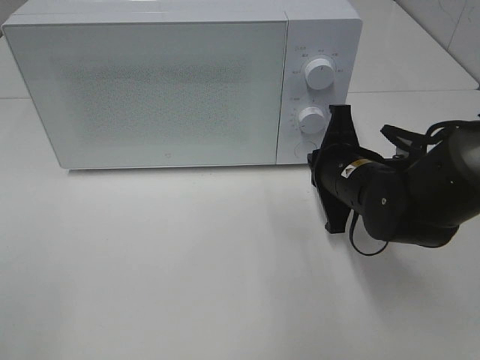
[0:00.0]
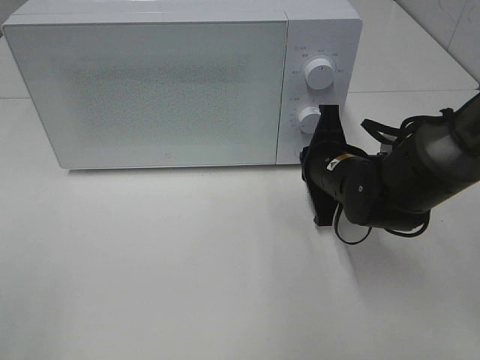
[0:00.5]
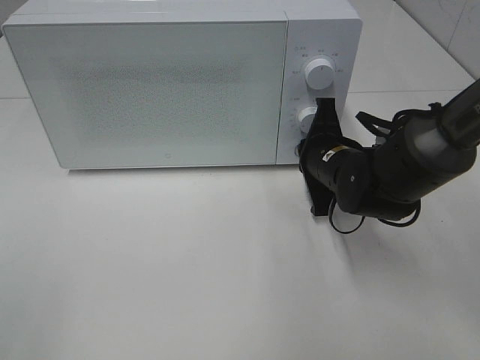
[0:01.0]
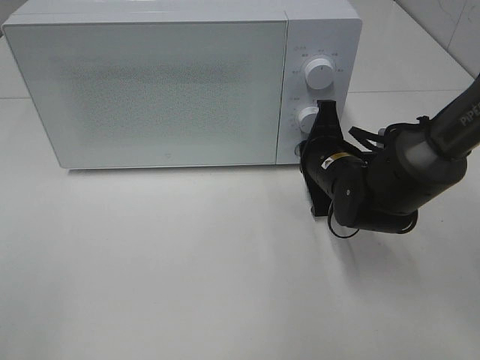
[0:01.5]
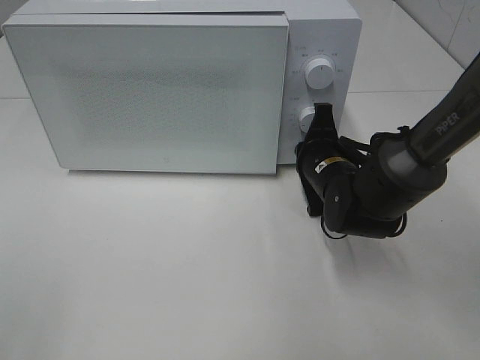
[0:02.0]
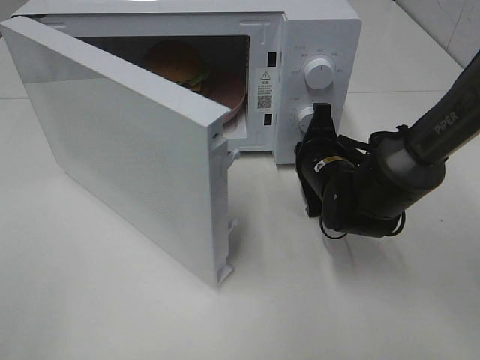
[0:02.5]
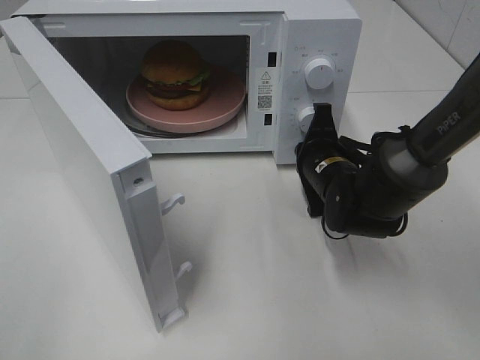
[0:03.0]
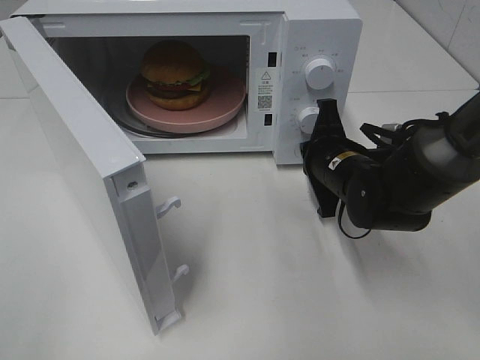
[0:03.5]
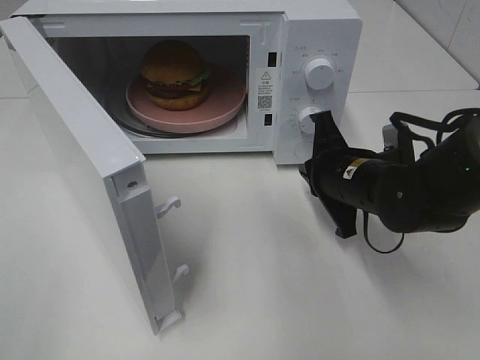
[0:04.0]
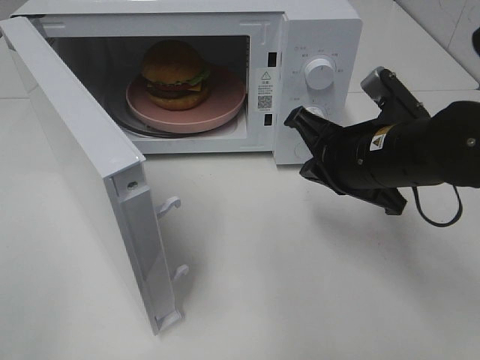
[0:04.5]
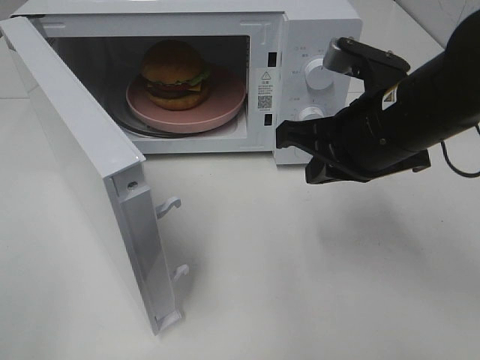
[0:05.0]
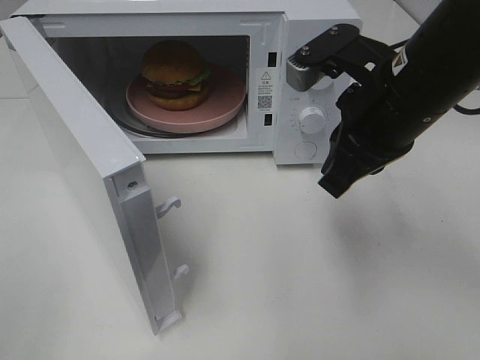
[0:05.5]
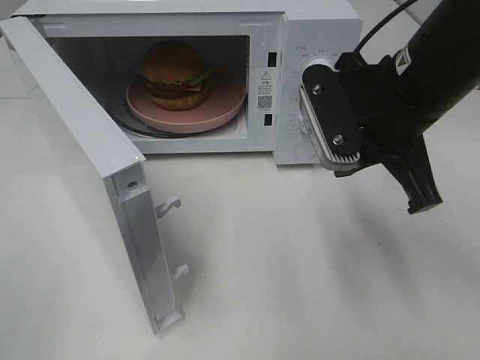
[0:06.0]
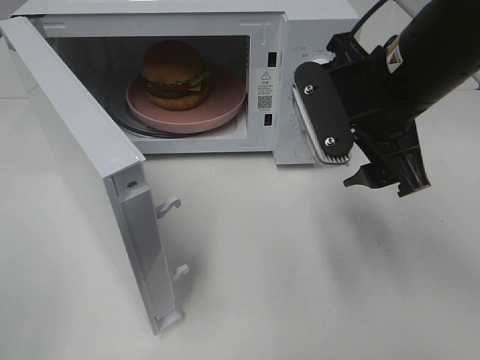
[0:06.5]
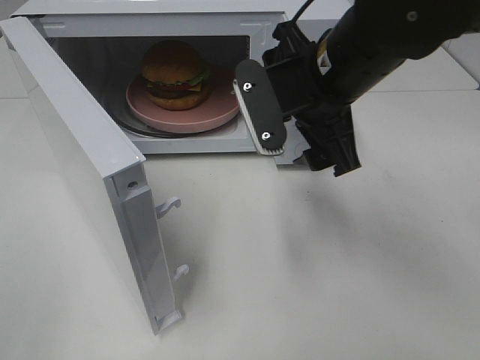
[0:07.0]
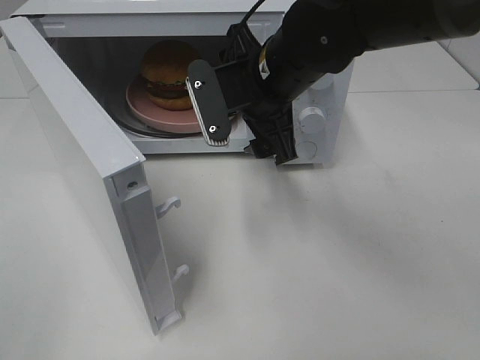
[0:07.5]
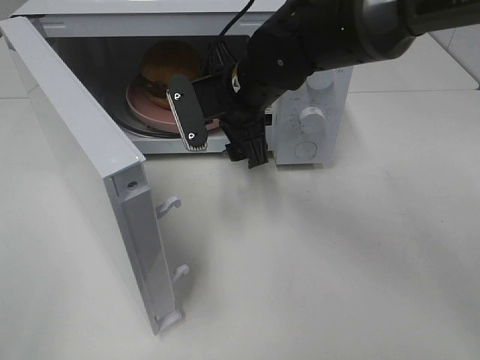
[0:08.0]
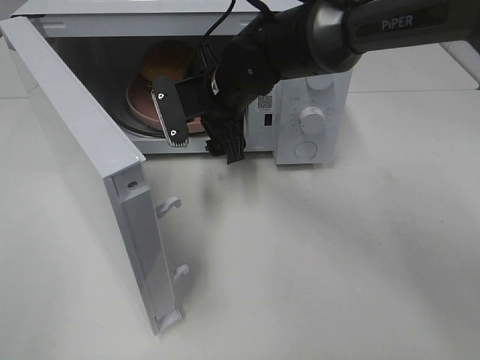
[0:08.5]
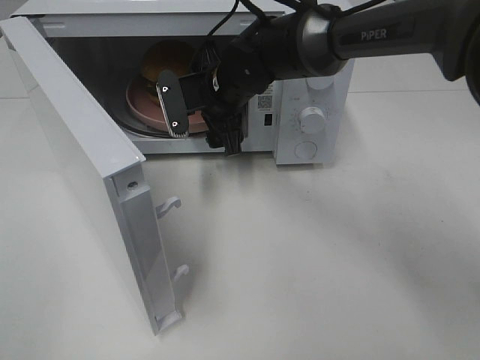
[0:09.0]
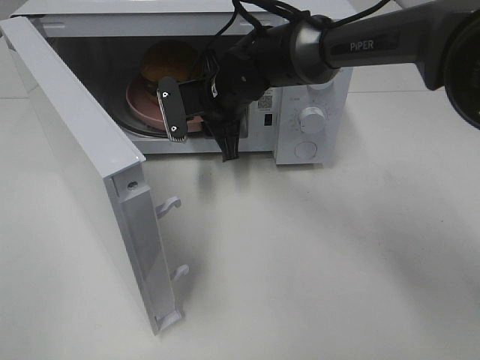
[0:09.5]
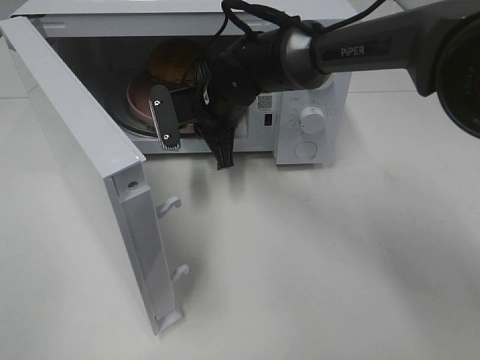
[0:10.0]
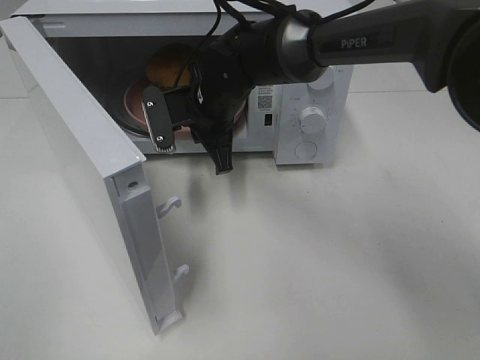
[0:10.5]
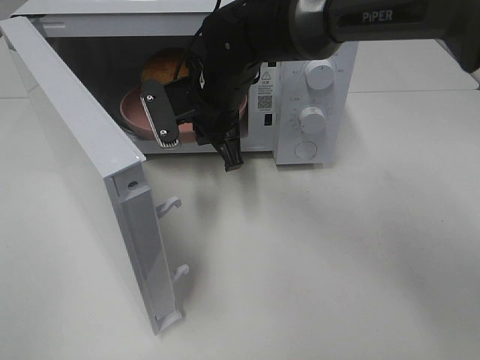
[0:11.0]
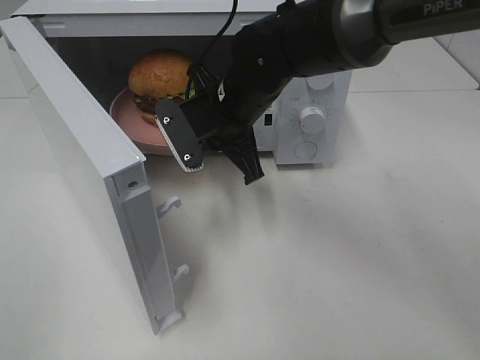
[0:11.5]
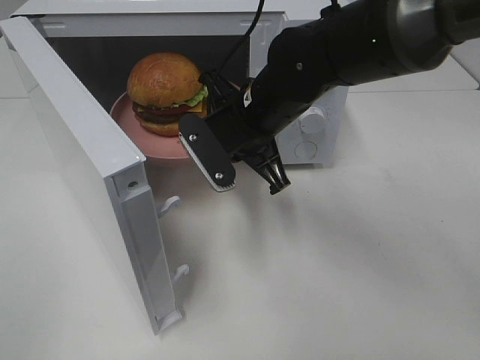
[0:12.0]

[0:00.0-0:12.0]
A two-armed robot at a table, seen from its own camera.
Task of the whole recording: Heat the burger.
Step, 0:00.0 to 0:03.5: Right hand: press the switch.
Step, 0:04.0 to 0:09.5: Right hand: grab the plate with the hamburger.
0:00.0 to 0:02.0: The right gripper moves some 5 cm.
0:02.0 to 0:04.0: The right gripper goes approximately 5 cm backward.
0:04.0 to 0:06.0: The right gripper is displaced upward by roughly 15 cm.
0:06.0 to 0:08.0: The right gripper travels to the left, forward and downward by about 20 cm, and opens its fingers.
0:08.0 to 0:10.0: The right gripper travels forward by about 5 cm, and closes up.
0:10.0 to 0:12.0: The right gripper is displaced backward by approximately 10 cm.

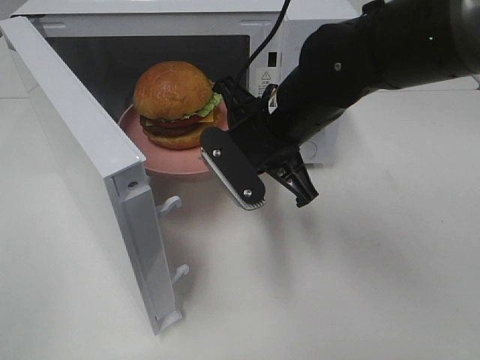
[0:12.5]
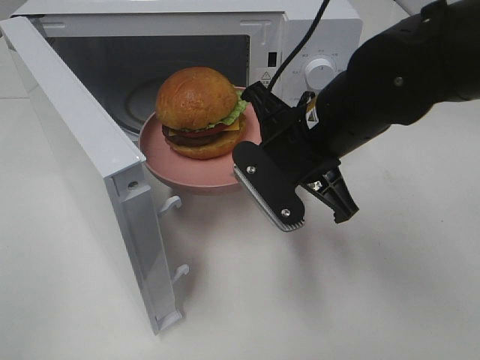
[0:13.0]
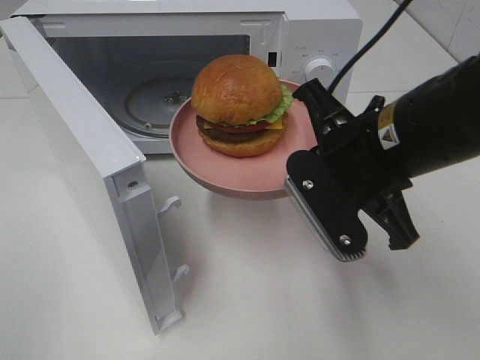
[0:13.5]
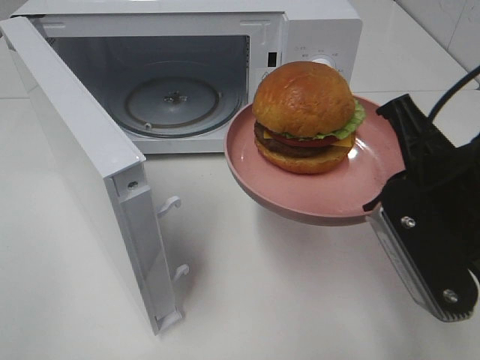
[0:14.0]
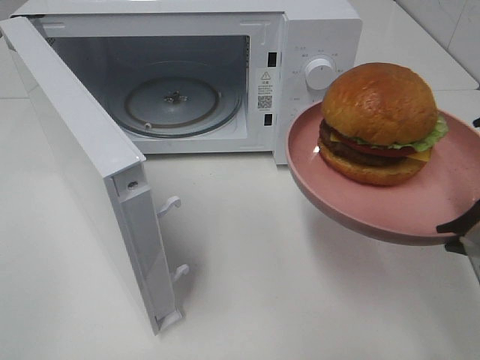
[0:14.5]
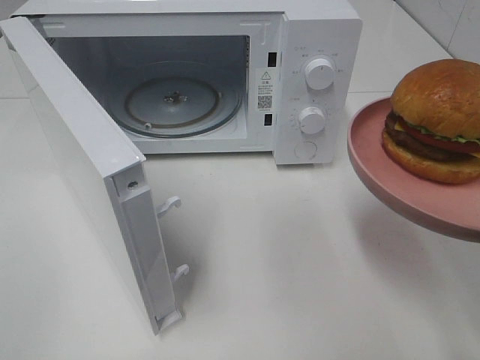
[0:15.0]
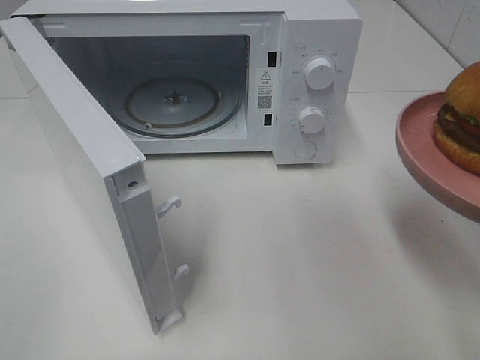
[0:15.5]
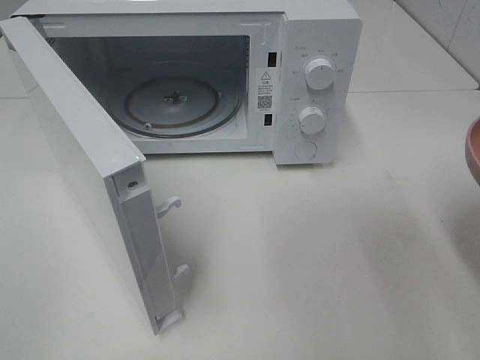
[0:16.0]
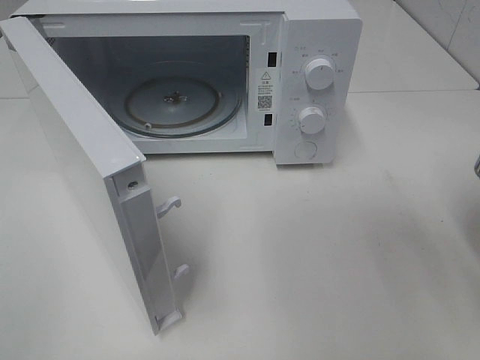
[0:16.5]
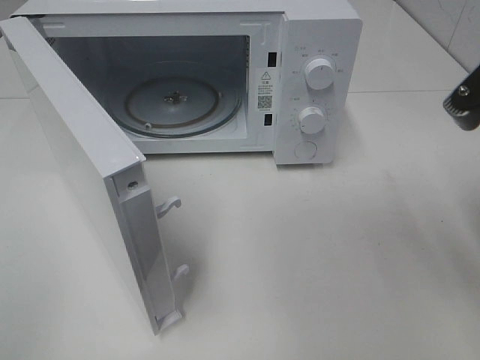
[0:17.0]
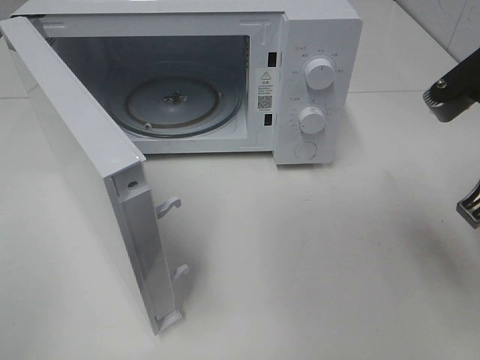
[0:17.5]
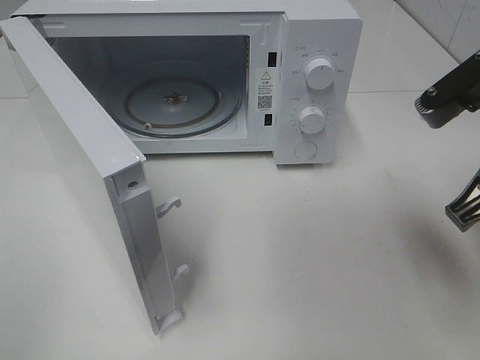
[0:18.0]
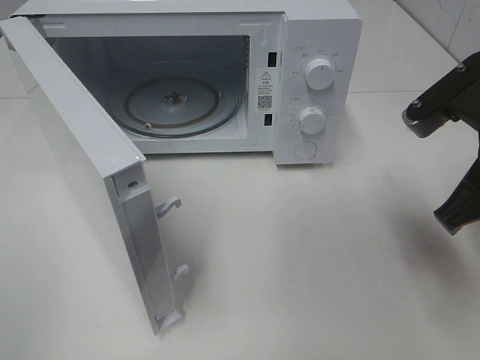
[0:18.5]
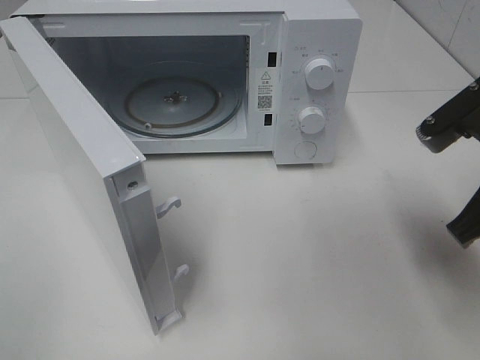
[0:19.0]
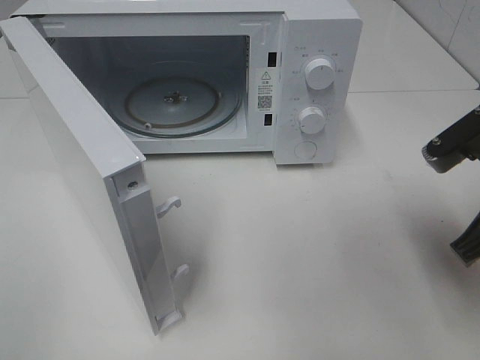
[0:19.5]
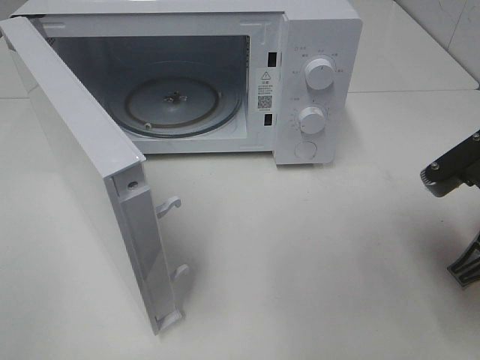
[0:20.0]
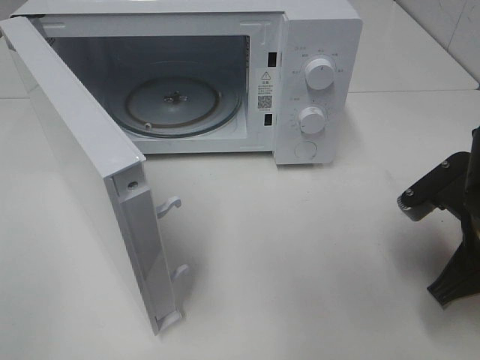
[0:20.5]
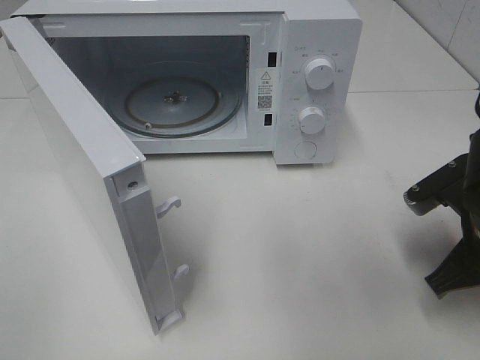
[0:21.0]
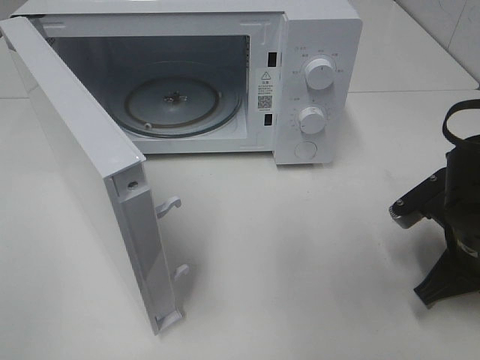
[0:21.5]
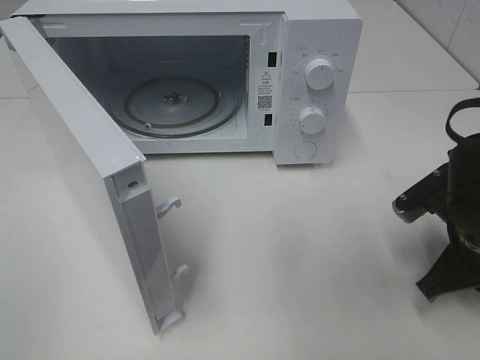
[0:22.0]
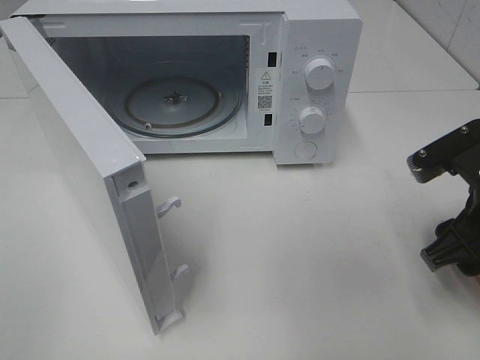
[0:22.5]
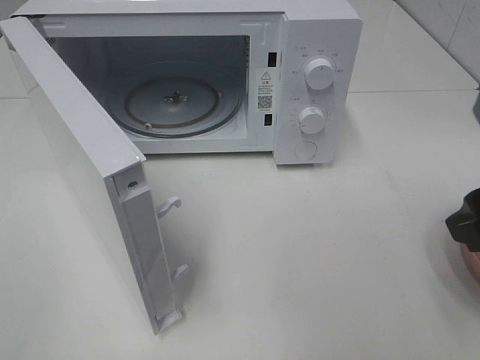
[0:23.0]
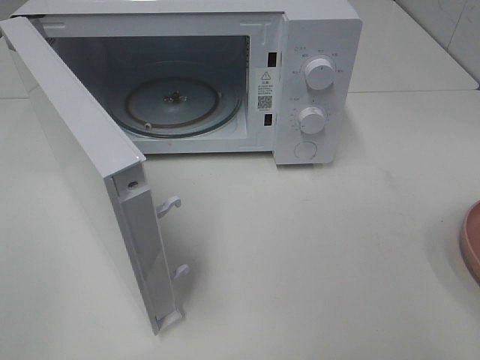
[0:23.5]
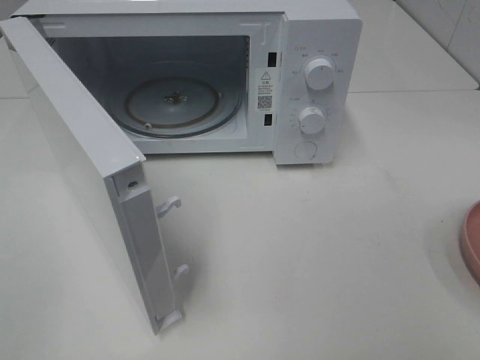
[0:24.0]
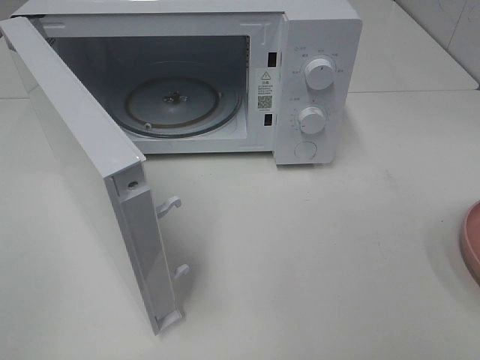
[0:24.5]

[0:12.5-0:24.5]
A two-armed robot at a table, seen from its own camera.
Task of the whole recording: Heat the burger.
Step, 0:12.5 to 0:22.0: Right hand: place the plate on the table.
0:12.5 to 0:14.5: The right gripper heads backward and to the right, covering approximately 25 cm.
0:16.5 to 0:18.5: The right gripper goes some 5 cm forward.
0:18.5 to 0:20.5: The right gripper goes some 10 cm downward.
0:20.5 to 0:22.5: The right gripper opens its fingers.
0:22.5 to 0:24.5: The right gripper goes some 20 cm backward and upward.

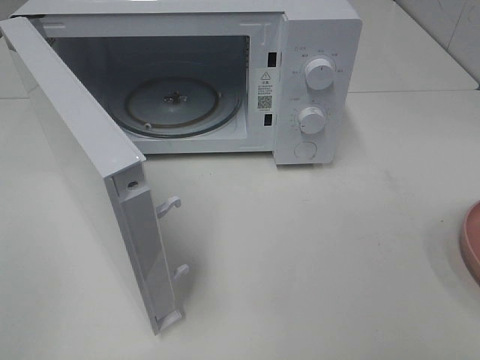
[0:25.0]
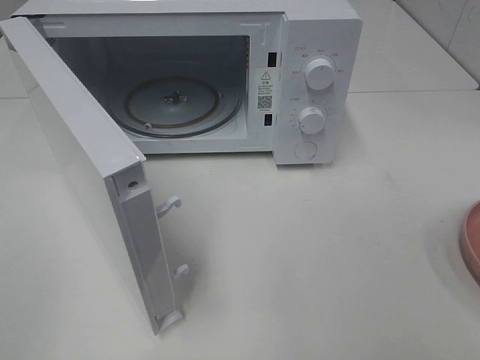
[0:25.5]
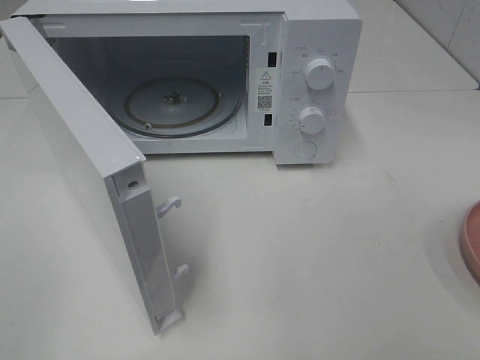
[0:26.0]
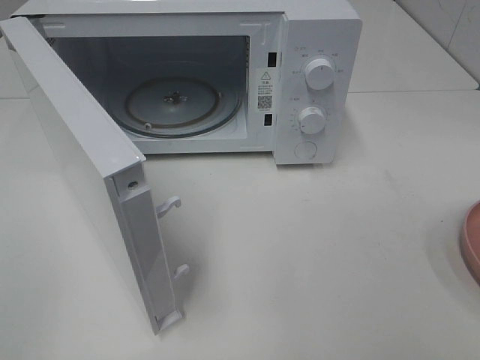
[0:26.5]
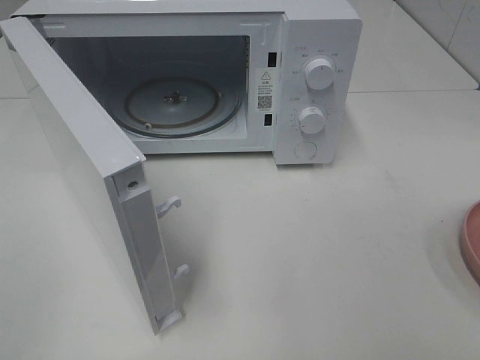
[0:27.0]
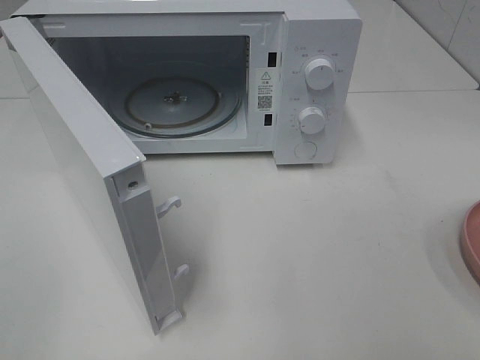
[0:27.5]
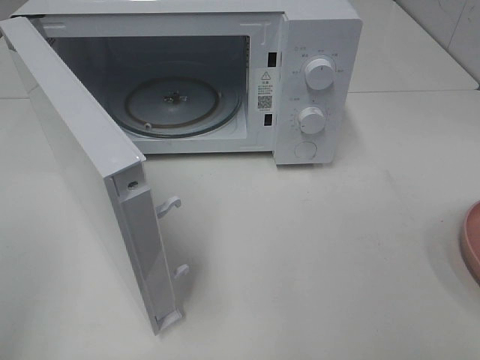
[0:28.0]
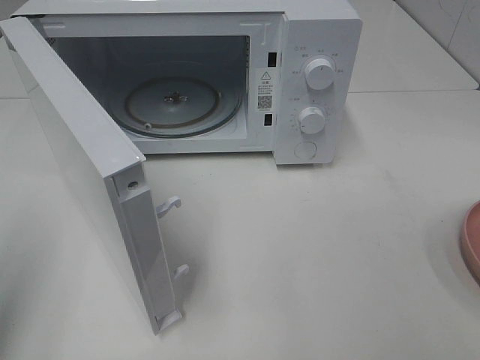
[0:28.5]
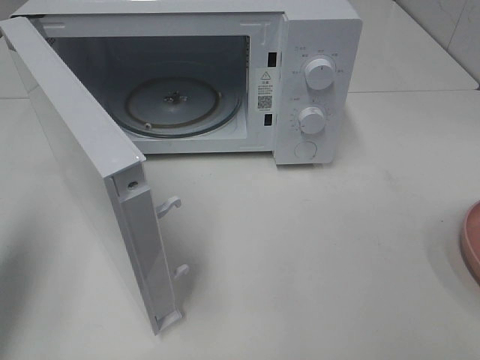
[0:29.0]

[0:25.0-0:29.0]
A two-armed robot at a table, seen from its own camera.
Task of the whole recording: Heat the burger.
0:25.0 to 0:27.0: Both grippers stay put.
0:27.0 to 0:29.0: The left gripper travels forward by about 15 cm, and closes up.
